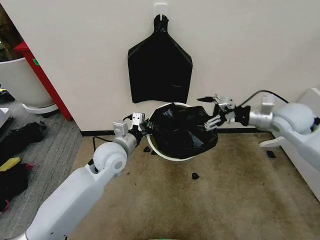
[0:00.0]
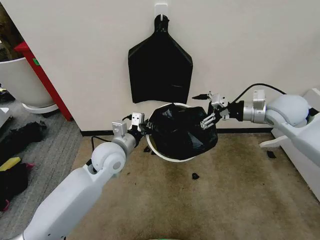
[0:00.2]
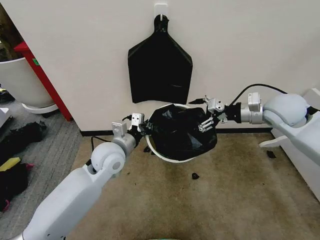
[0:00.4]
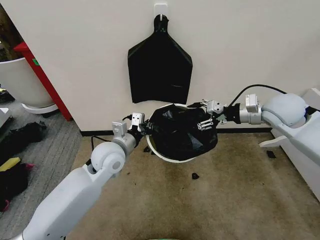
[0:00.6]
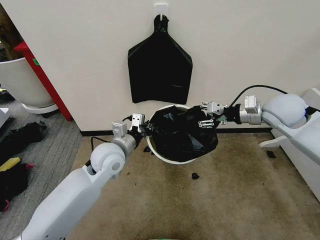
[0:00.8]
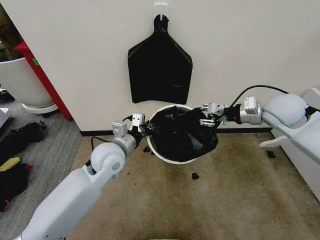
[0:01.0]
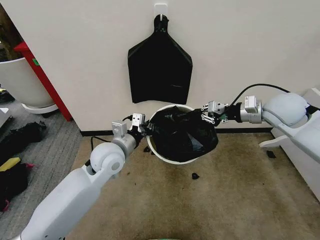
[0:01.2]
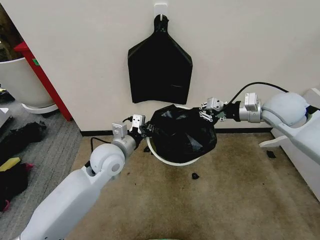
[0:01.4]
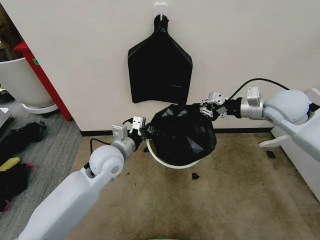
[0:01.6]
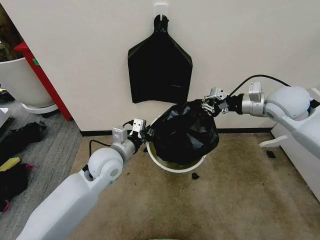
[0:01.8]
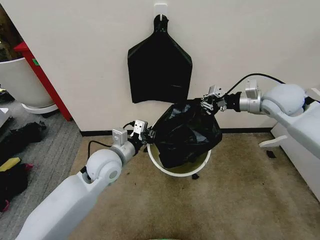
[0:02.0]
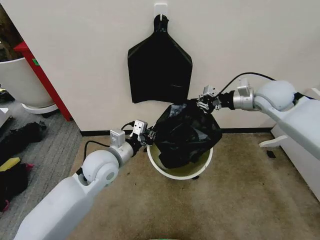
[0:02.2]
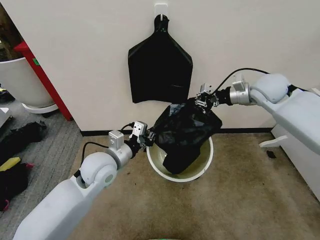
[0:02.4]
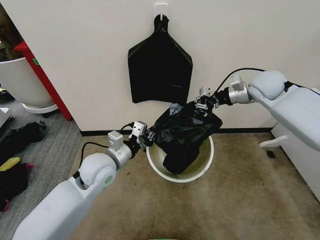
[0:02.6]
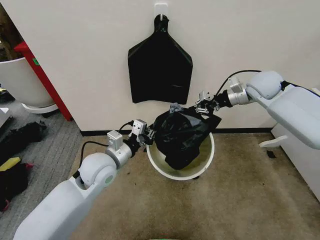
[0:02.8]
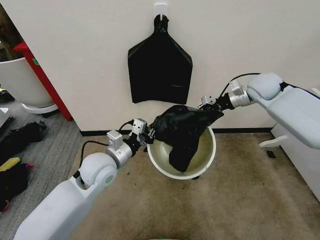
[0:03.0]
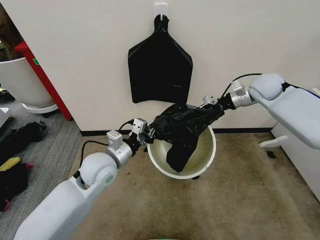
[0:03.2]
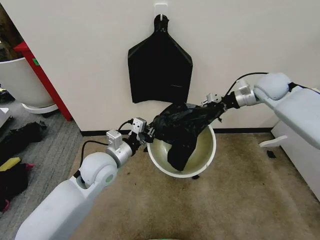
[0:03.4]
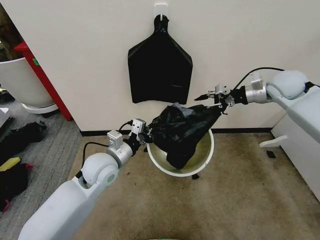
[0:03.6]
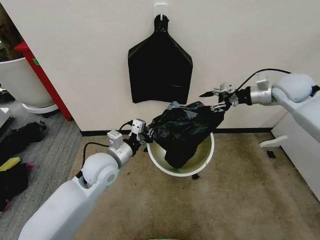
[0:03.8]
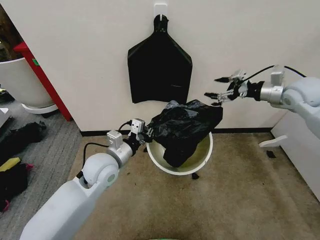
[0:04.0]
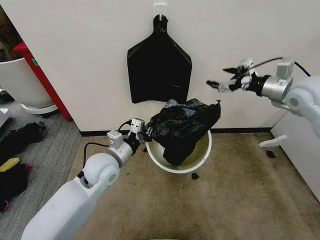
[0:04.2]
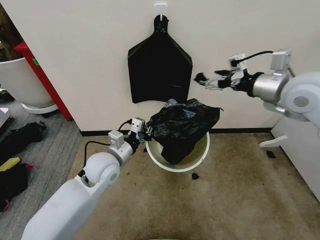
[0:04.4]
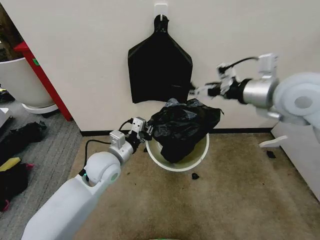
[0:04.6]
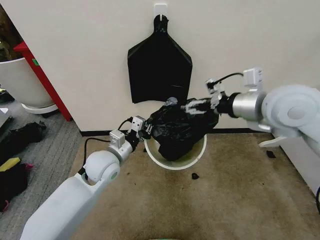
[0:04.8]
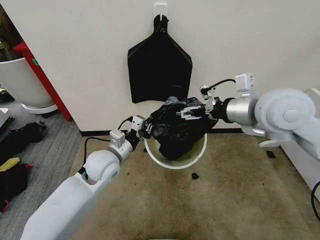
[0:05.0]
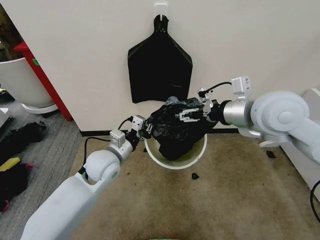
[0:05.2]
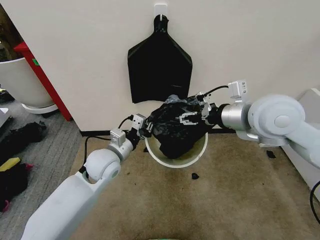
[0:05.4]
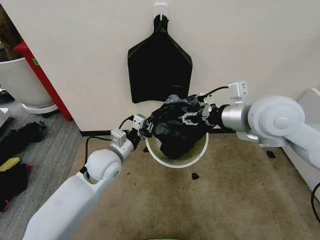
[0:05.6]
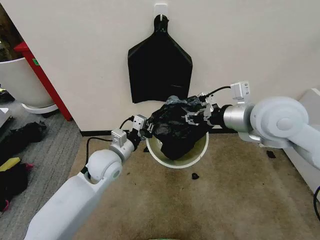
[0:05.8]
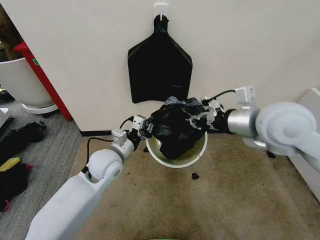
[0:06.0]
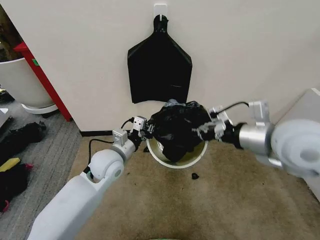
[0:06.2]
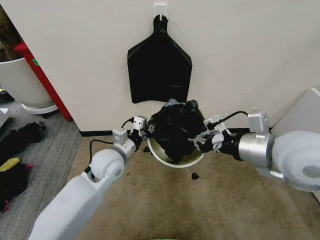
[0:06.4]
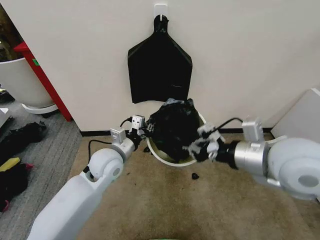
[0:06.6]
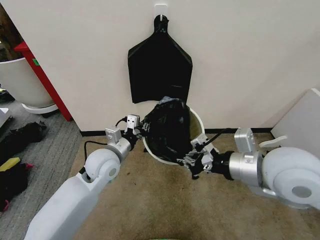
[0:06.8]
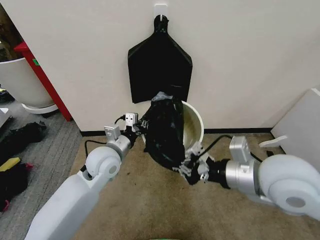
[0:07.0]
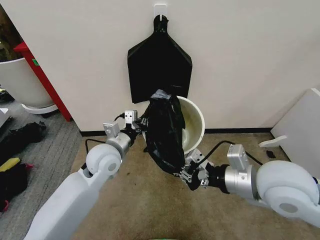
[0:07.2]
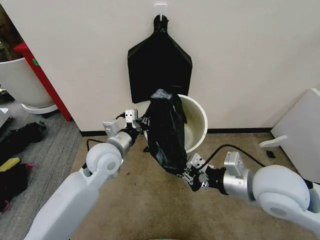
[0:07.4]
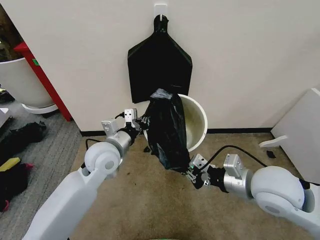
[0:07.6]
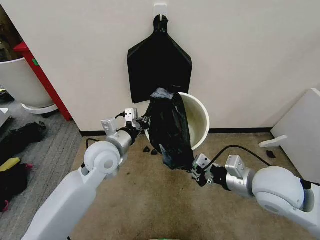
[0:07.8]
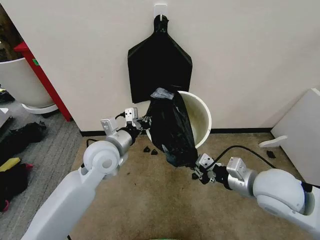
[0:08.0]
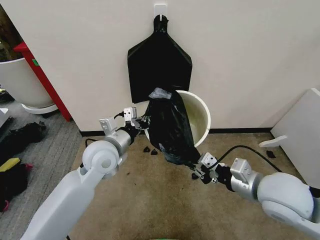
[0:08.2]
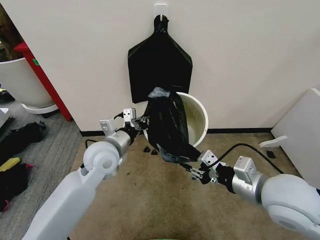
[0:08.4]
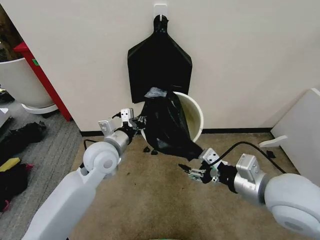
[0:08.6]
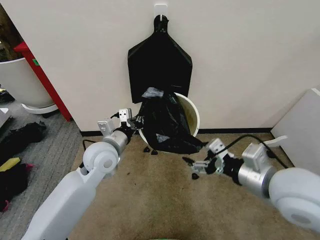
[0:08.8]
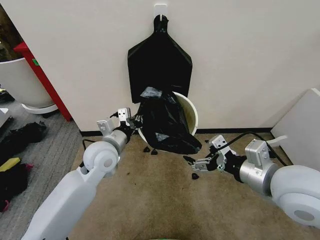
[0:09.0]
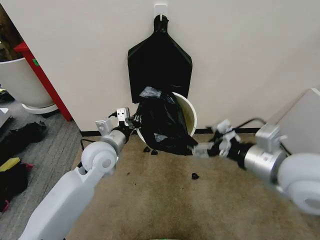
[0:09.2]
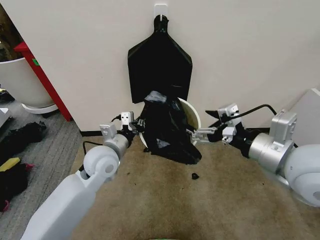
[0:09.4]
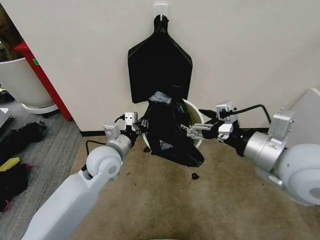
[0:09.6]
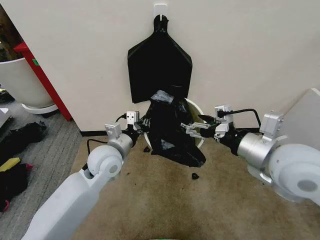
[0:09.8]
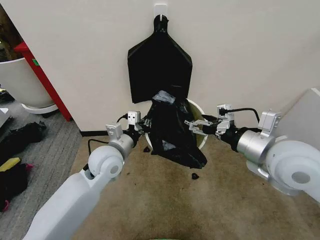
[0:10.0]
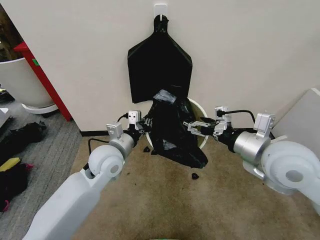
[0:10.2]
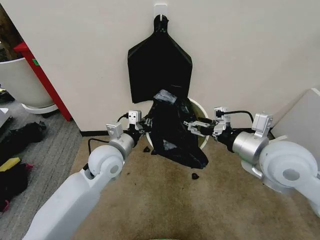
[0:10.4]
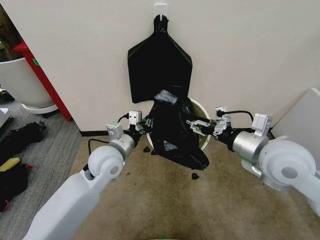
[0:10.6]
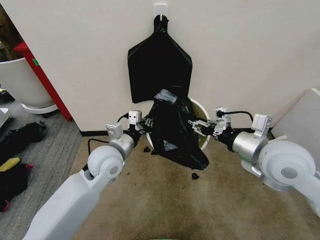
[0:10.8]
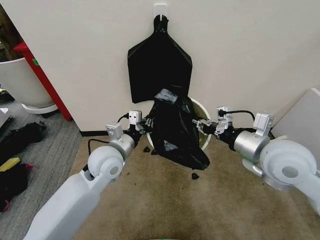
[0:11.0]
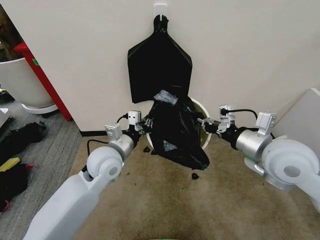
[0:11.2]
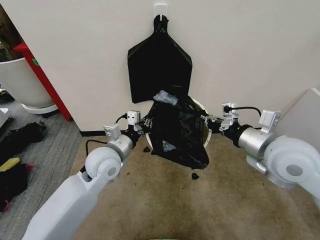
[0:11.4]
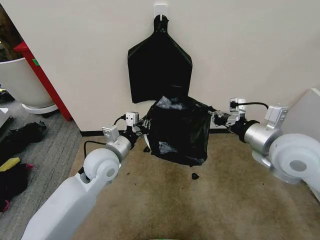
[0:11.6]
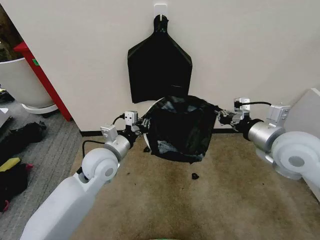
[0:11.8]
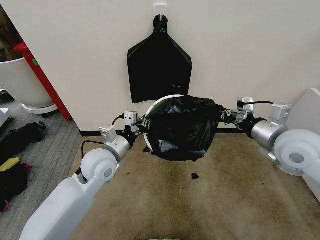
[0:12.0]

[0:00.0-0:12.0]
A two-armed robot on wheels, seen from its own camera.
Task of the whole recording: Place the garbage bag over the trash bin.
0:00.0 to 0:01.6: The right gripper closes.
0:01.6 to 0:03.0: The right gripper travels forward by some 10 cm.
0:03.0 to 0:04.4: The right gripper travels backward and upward by approximately 20 cm, and opens up.
0:04.4 to 0:06.0: The right gripper heads to the left and backward, covering about 10 cm, and closes.
0:06.0 to 0:07.6: The right gripper is displaced downward and backward by some 15 cm.
0:07.6 to 0:09.0: The right gripper shifts some 5 cm upward, and opens up.
0:09.0 to 0:10.4: The right gripper moves forward, some 5 cm.
0:10.4 to 0:12.0: The right gripper is displaced to the right by approximately 5 cm, and closes up.

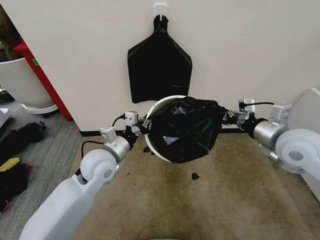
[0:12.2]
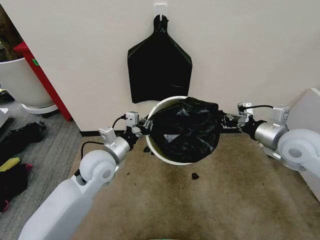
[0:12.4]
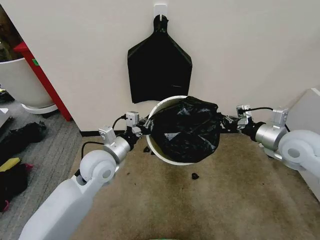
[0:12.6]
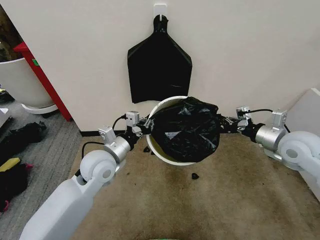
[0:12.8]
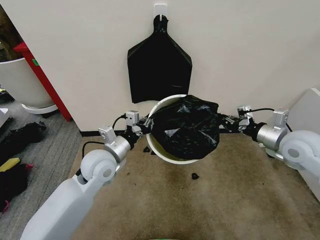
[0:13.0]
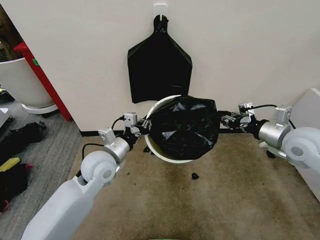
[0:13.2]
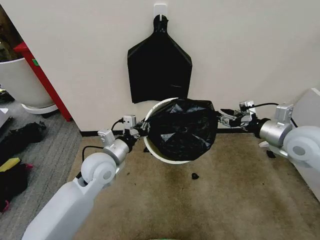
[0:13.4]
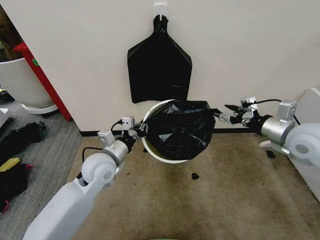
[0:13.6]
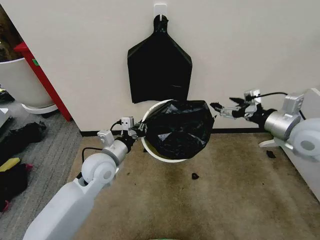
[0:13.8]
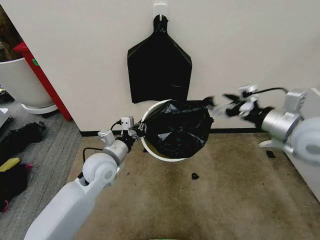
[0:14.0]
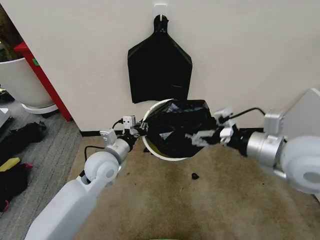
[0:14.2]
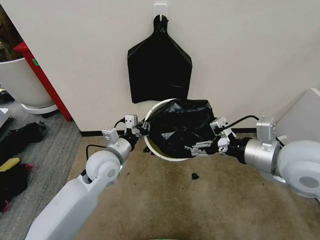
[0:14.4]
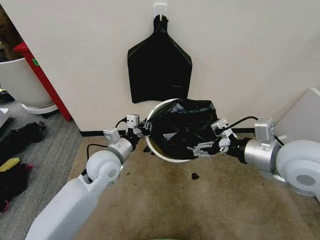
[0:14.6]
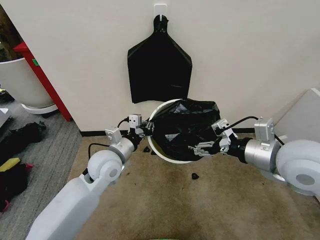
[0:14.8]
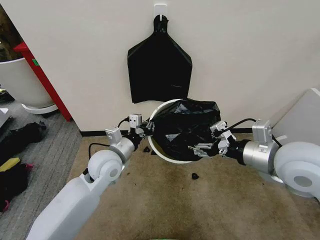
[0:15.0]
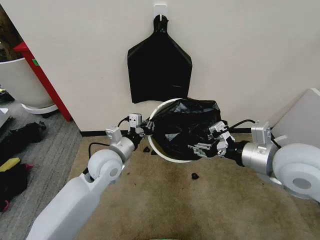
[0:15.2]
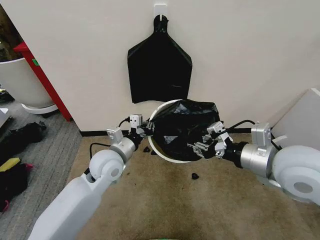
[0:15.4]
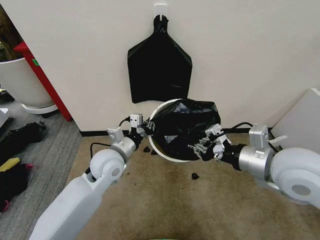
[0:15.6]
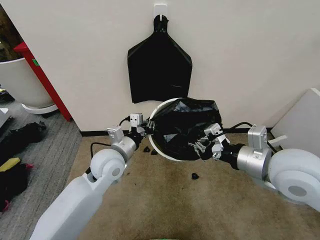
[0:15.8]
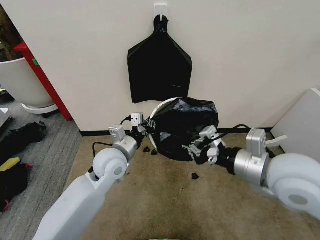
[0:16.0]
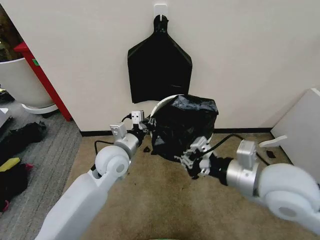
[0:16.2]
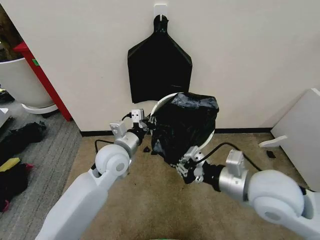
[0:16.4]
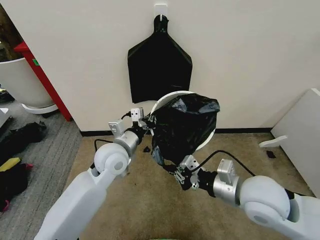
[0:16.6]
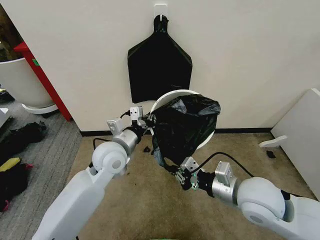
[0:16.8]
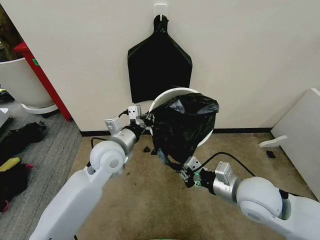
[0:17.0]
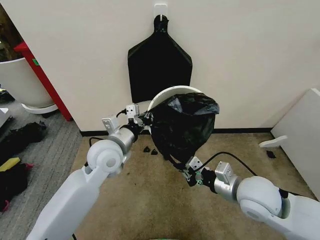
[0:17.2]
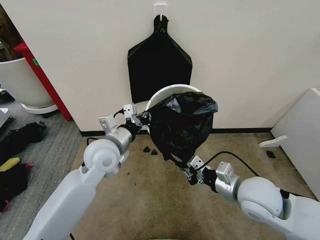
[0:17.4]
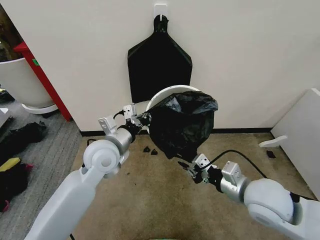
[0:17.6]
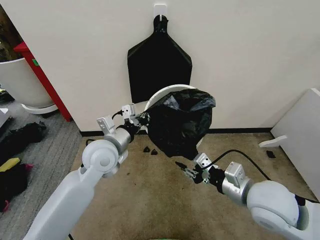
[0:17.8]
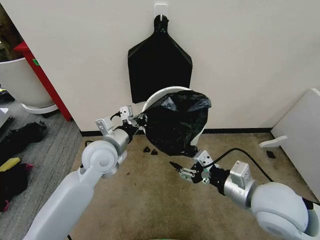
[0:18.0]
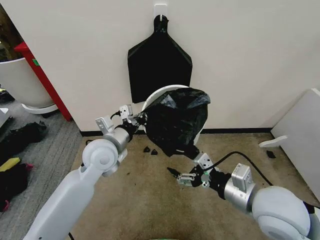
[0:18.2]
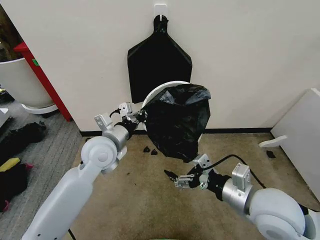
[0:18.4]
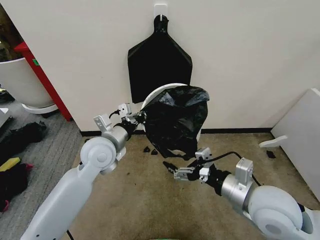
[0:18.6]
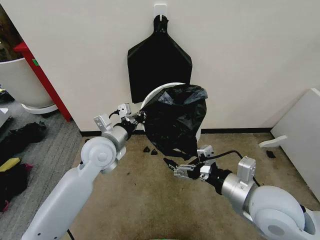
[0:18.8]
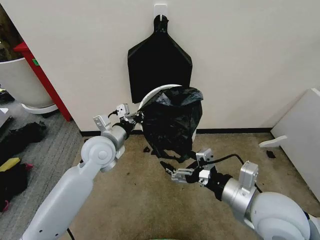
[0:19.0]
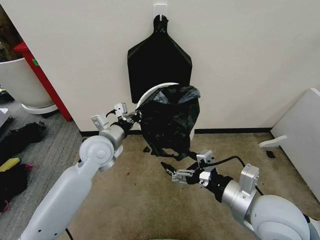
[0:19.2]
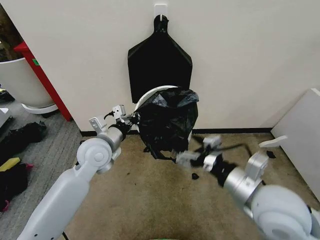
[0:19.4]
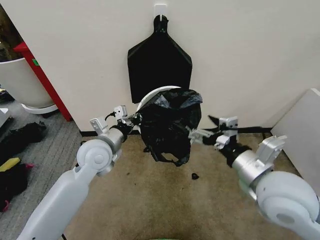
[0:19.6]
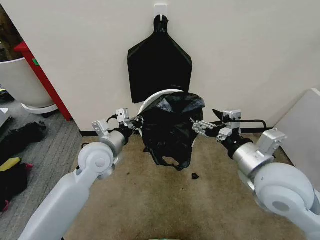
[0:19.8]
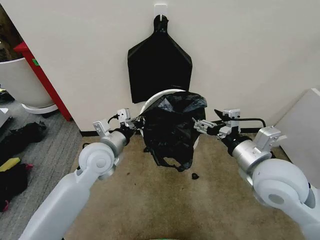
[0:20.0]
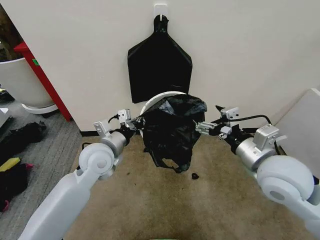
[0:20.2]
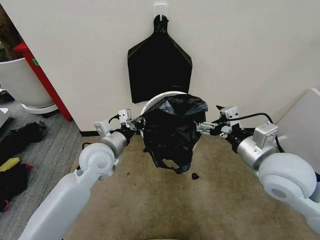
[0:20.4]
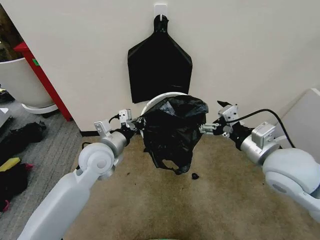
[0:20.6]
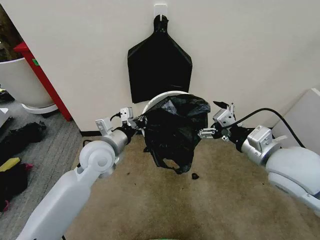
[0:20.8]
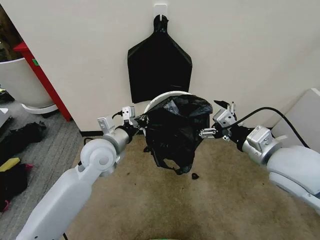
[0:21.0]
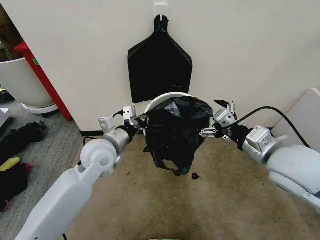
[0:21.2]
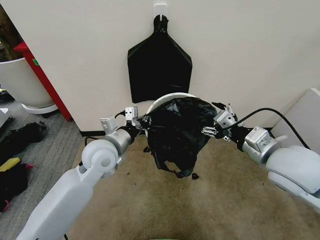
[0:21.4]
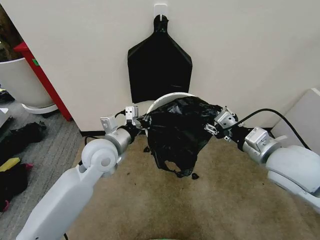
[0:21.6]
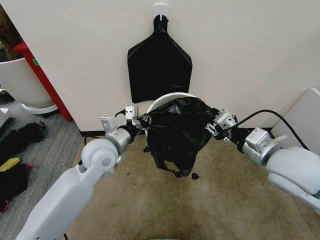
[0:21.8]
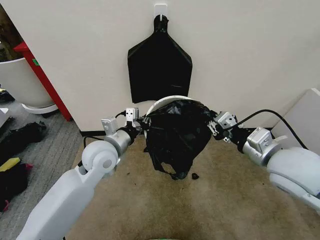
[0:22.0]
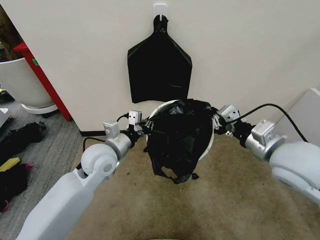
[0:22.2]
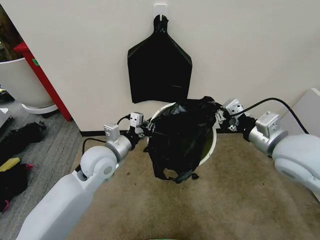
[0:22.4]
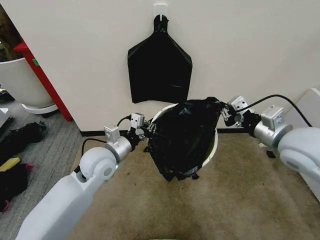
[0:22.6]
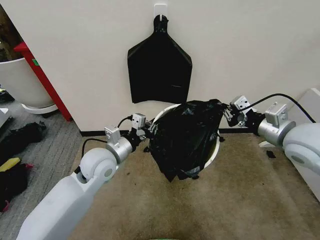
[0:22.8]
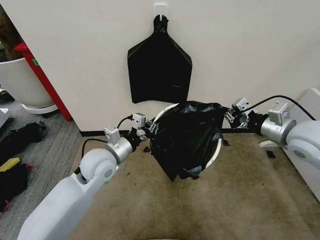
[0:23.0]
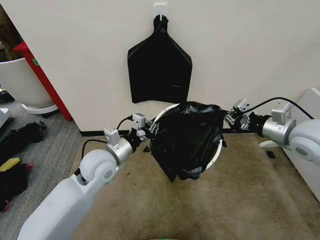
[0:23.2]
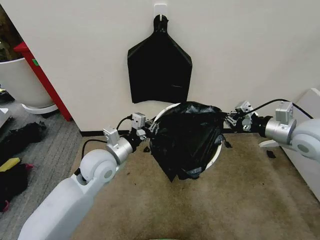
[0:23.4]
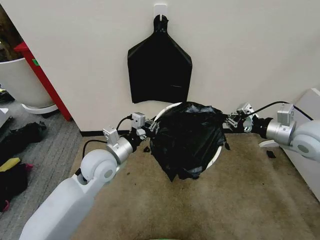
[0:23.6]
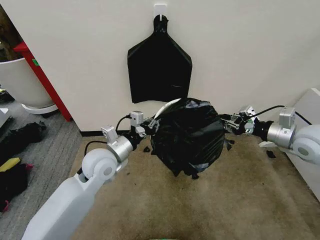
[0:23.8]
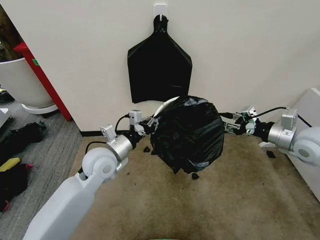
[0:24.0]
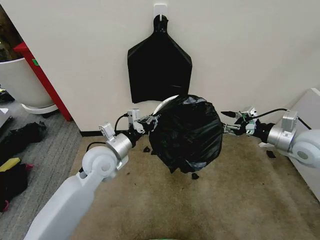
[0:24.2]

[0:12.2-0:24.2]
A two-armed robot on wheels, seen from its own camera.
Task of the whole recording: Place the garbage bag over the trash bin.
0:12.2 to 0:13.8: The right gripper opens its fingers.
0:13.8 to 0:15.2: The right gripper is displaced to the left and backward by approximately 10 cm, and closes.
0:15.2 to 0:16.6: The right gripper is displaced downward and to the left by some 10 cm, and closes.
0:16.6 to 0:18.2: The right gripper opens.
0:18.2 to 0:19.8: The right gripper shifts by roughly 5 cm.
0:19.8 to 0:21.2: The right gripper moves roughly 5 cm.
0:21.2 to 0:22.6: The right gripper moves roughly 5 cm, and closes.
0:22.6 to 0:24.2: The right gripper shifts roughly 10 cm to the right and downward, and opens up.
